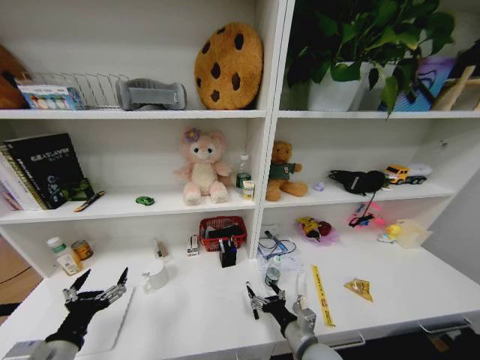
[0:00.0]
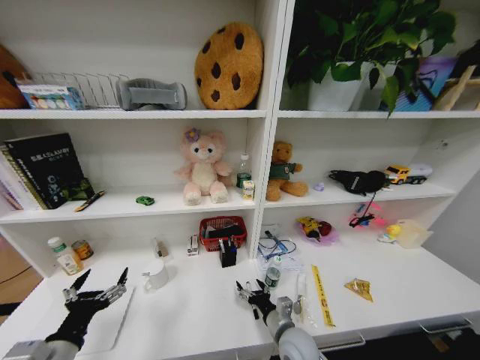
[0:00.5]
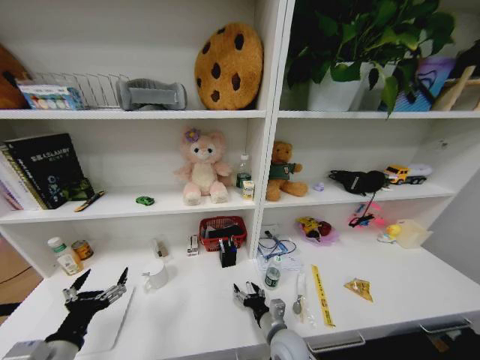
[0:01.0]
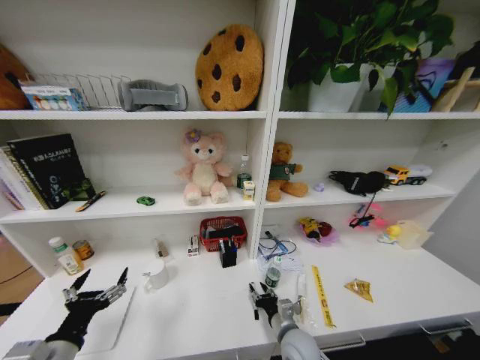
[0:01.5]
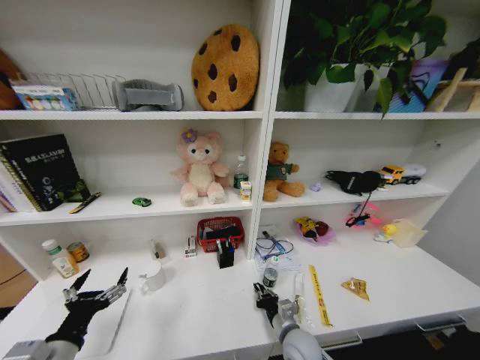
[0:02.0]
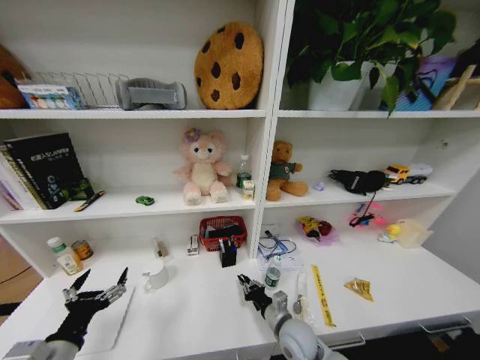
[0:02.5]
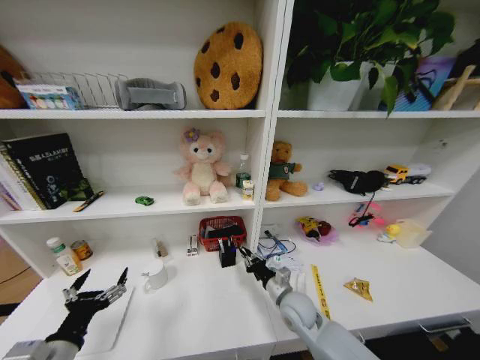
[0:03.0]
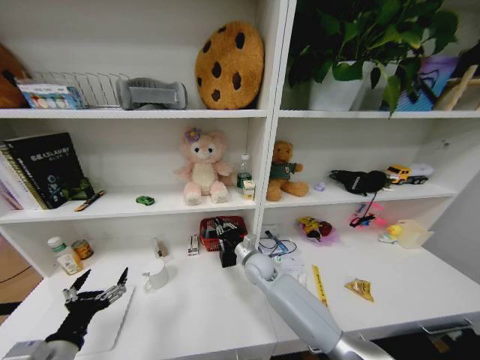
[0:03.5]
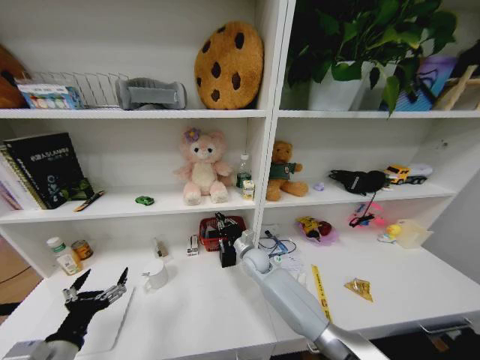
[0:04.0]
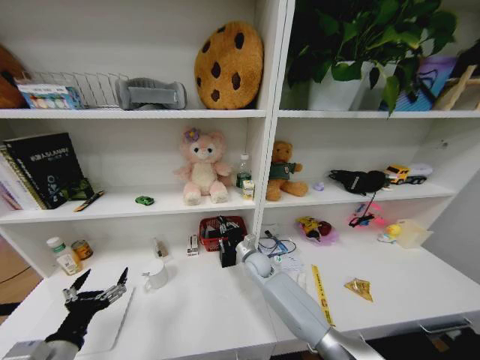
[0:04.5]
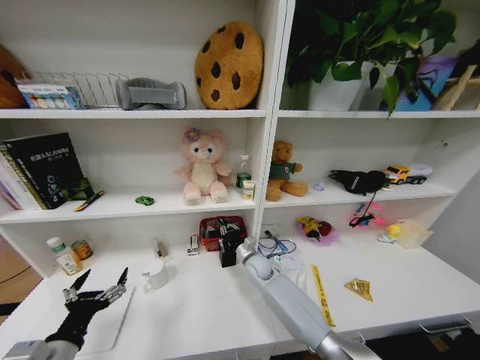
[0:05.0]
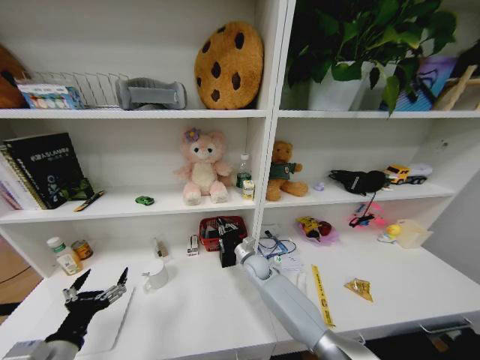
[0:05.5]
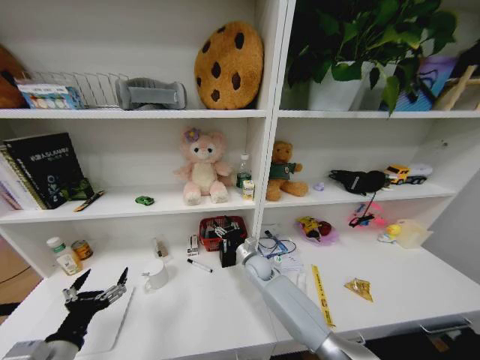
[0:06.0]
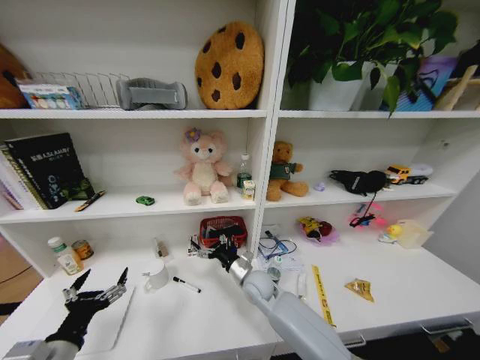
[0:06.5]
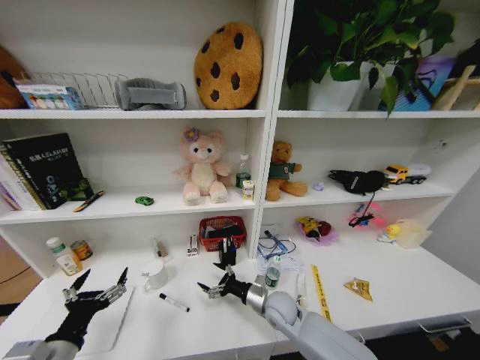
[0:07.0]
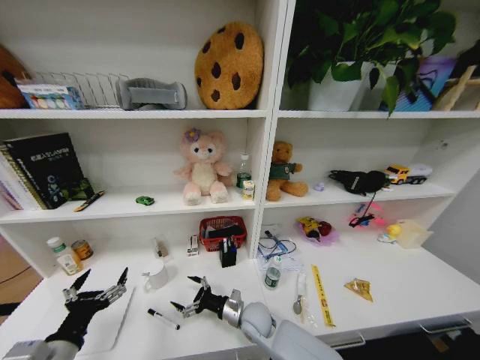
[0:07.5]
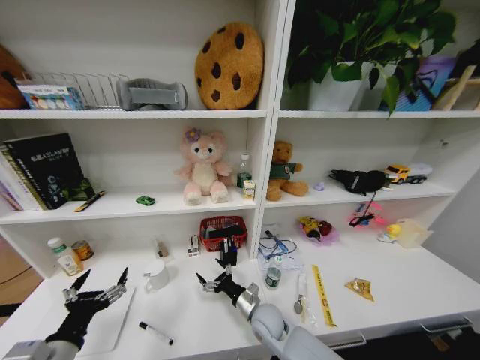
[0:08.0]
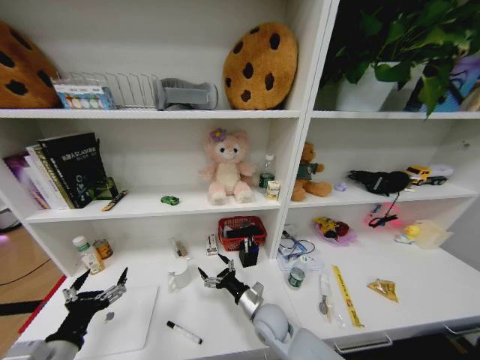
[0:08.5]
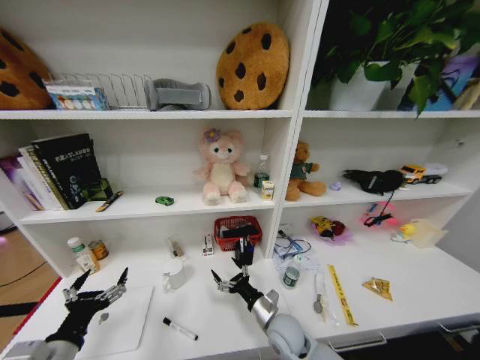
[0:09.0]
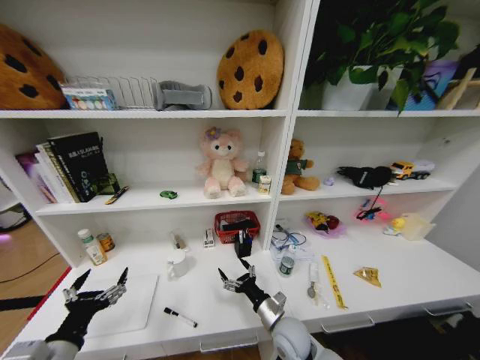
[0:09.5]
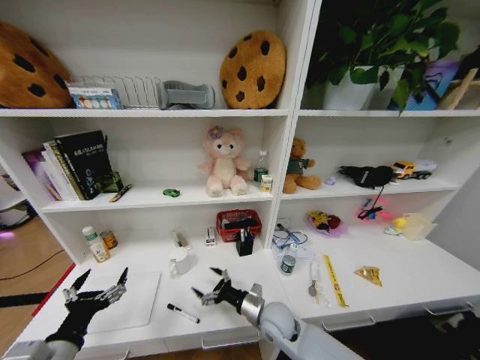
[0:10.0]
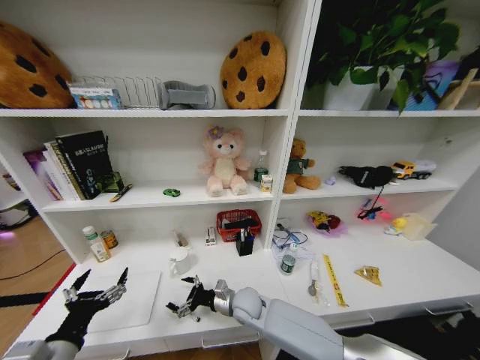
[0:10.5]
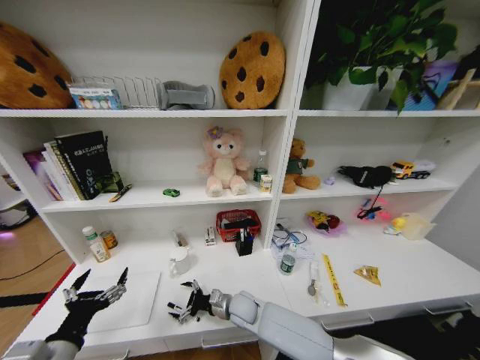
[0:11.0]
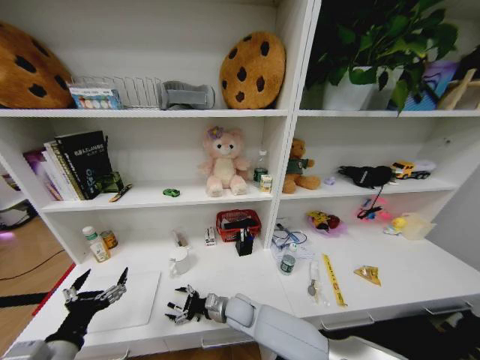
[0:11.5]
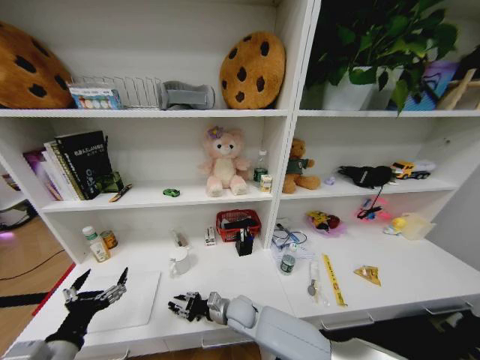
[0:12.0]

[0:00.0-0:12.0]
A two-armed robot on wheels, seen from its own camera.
Task of the whole recording: Organize the objects on the table.
0:00.0 to 0:02.0: The right gripper goes about 5 cm downward, and closes its fingers.
0:02.0 to 0:04.0: The right gripper heads forward, covering approximately 25 cm.
0:04.0 to 0:06.0: The right gripper opens up.
0:06.0 to 0:08.0: The right gripper travels backward by roughly 15 cm.
0:10.0 to 0:12.0: The right gripper moves to the left and downward, approximately 10 cm, and closes.

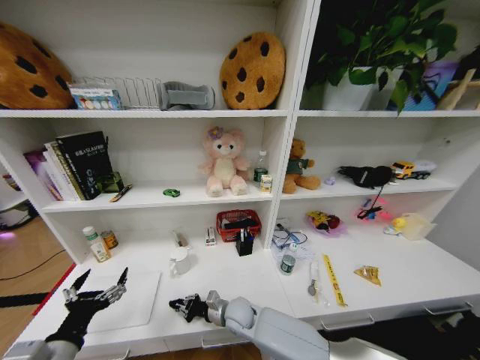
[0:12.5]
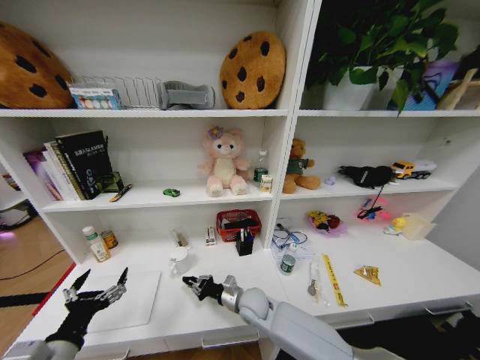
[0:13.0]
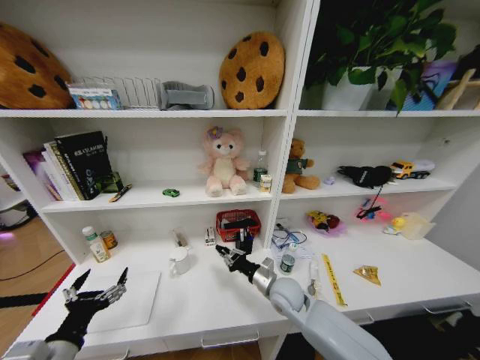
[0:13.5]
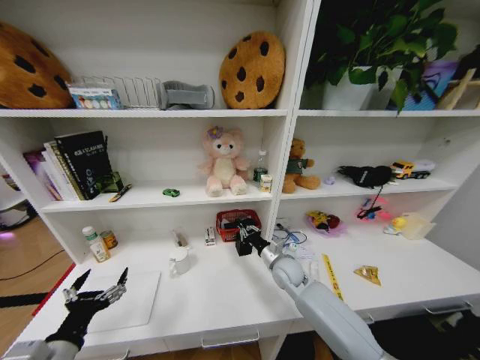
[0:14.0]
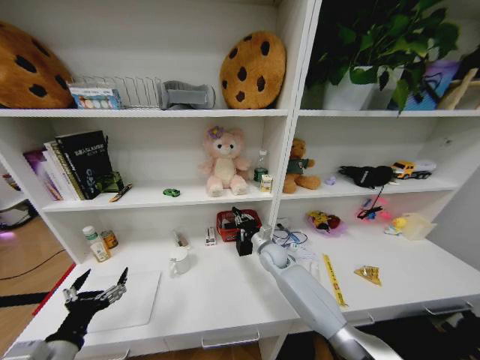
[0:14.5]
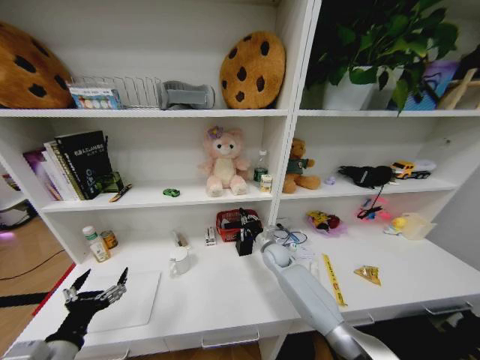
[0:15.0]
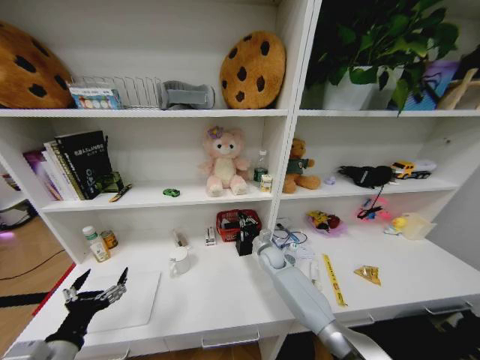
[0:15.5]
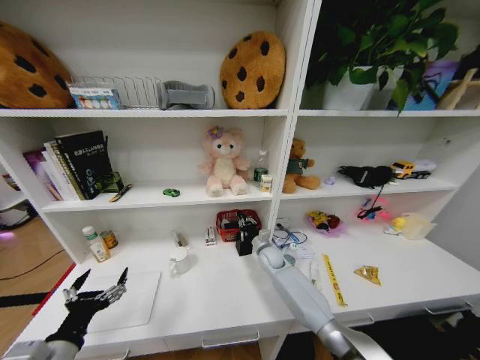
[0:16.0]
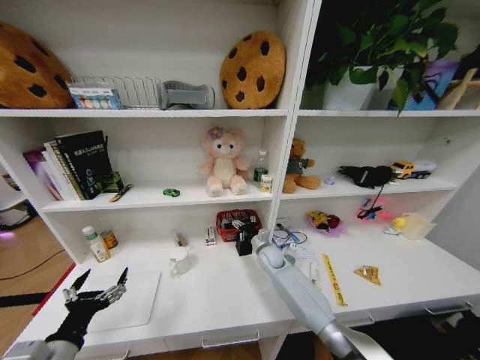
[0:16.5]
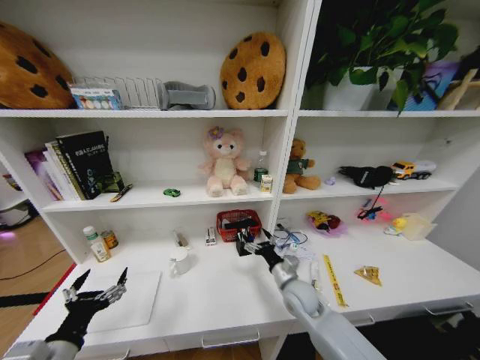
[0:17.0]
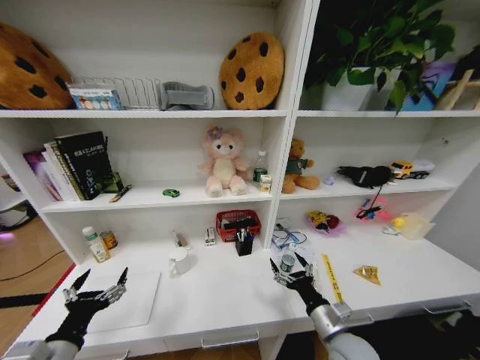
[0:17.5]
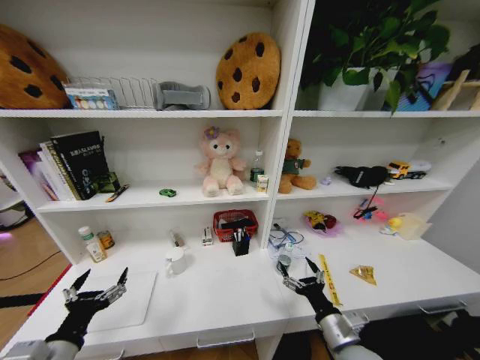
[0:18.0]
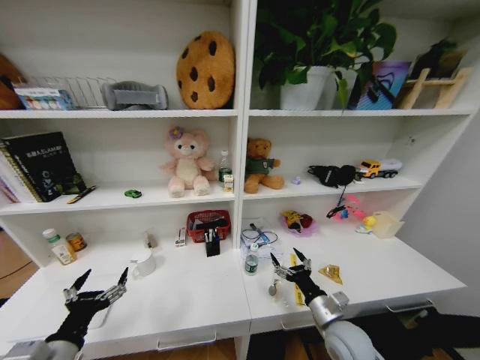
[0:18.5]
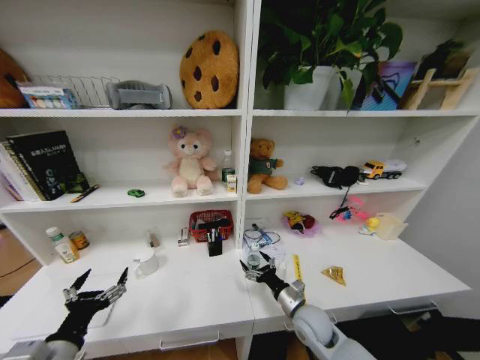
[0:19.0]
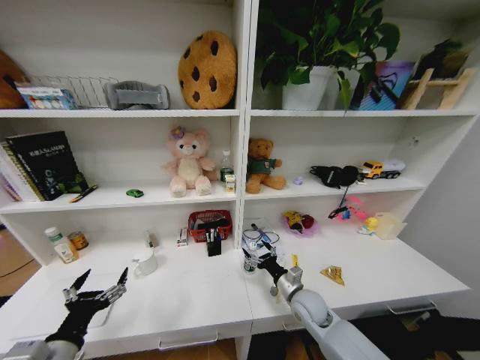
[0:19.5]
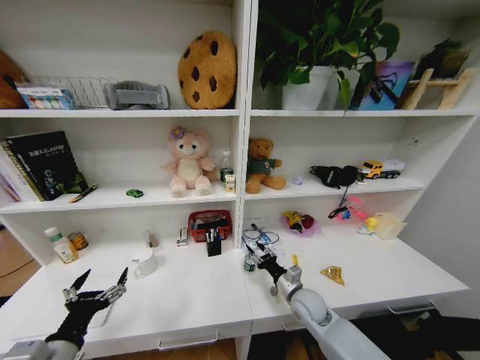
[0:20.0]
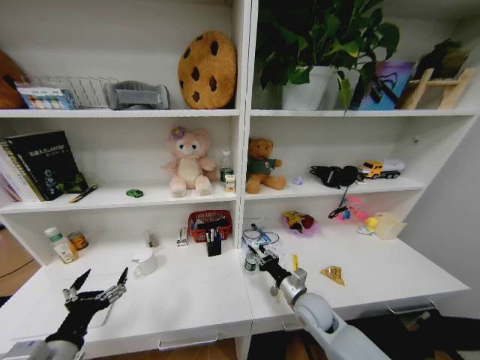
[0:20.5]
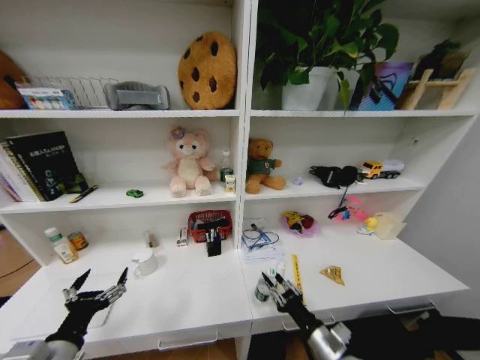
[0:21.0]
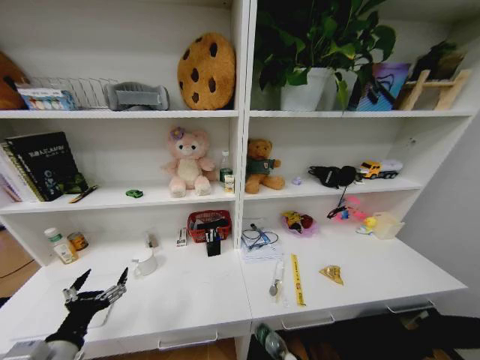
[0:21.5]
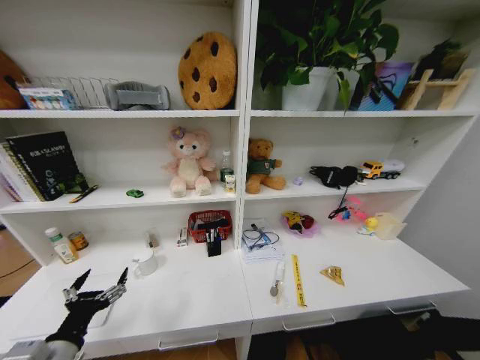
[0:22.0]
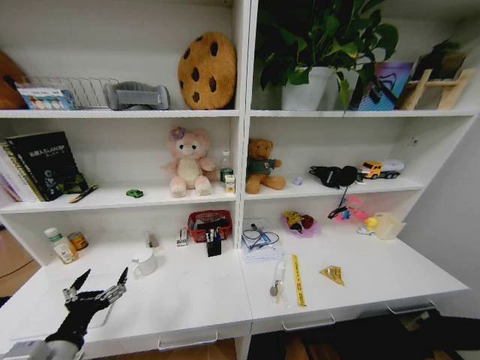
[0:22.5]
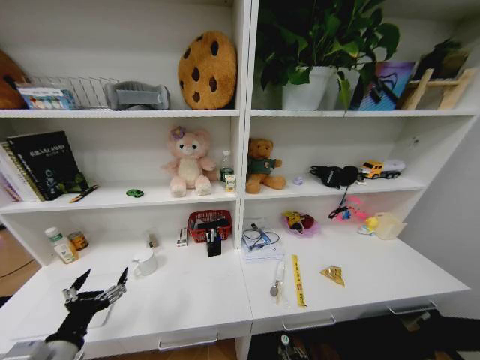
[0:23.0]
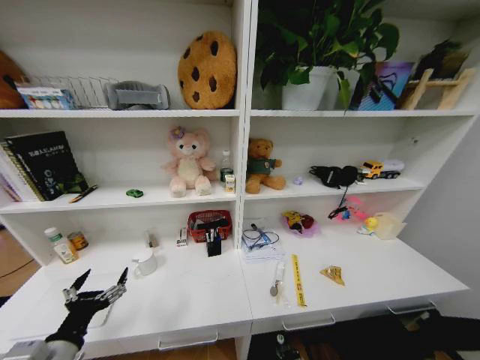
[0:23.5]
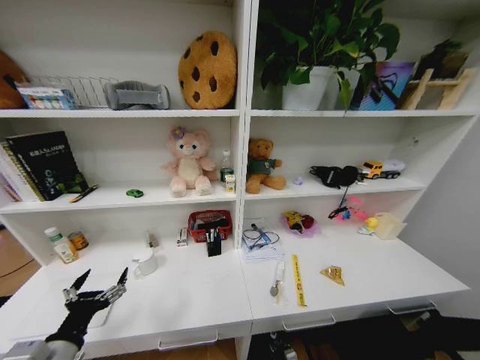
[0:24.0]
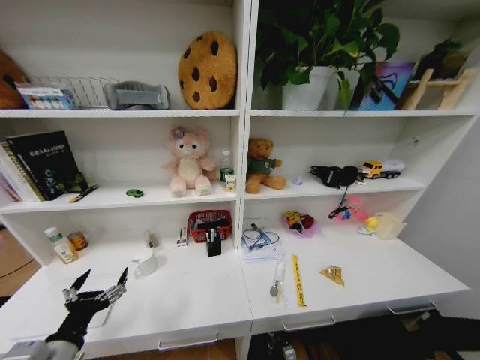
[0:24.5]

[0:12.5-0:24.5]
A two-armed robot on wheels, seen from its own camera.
Task of the whole recording: Organize the objects on the table.
0:12.5 to 0:14.5: The right gripper shifts approximately 25 cm forward, to the right and upward.
0:14.5 to 0:16.5: The right gripper opens.
0:16.5 to 0:18.5: The right gripper shifts about 30 cm backward and to the right.
0:18.5 to 0:20.5: The right gripper moves forward, some 10 cm, and closes its fingers.
0:20.5 to 0:22.5: The right gripper travels backward and downward by approximately 35 cm.

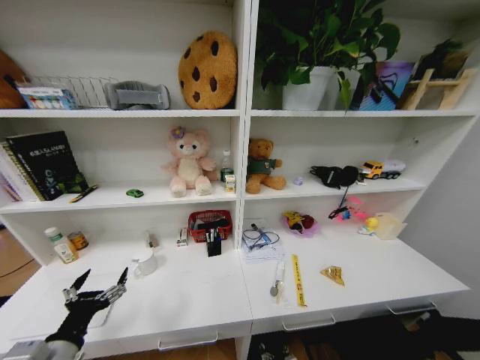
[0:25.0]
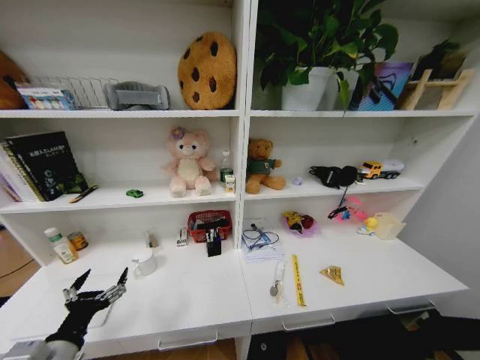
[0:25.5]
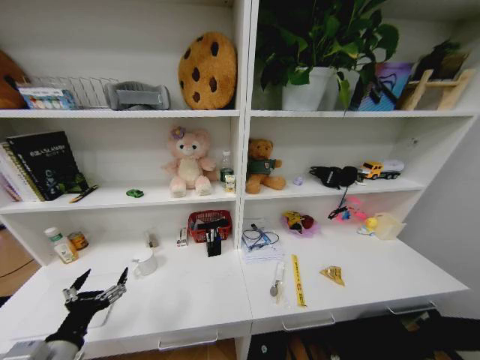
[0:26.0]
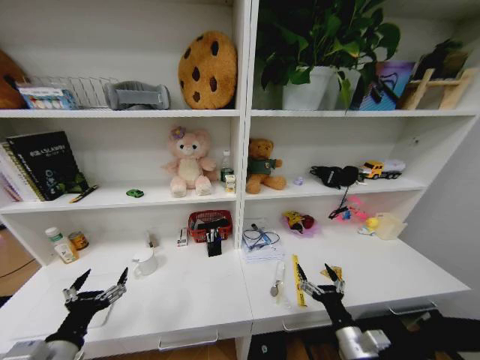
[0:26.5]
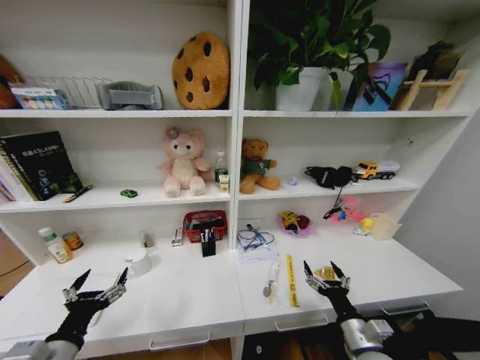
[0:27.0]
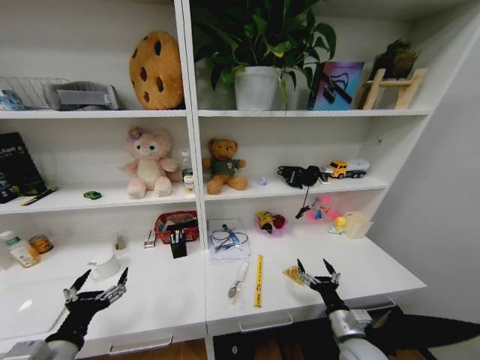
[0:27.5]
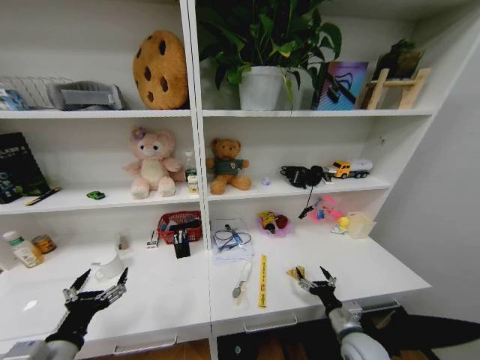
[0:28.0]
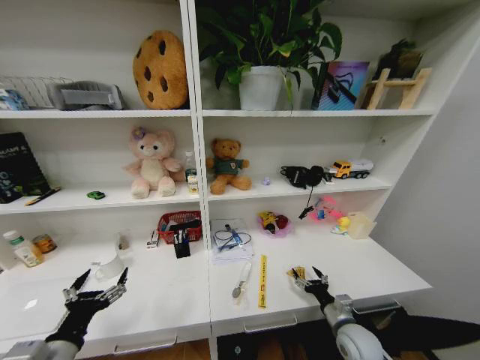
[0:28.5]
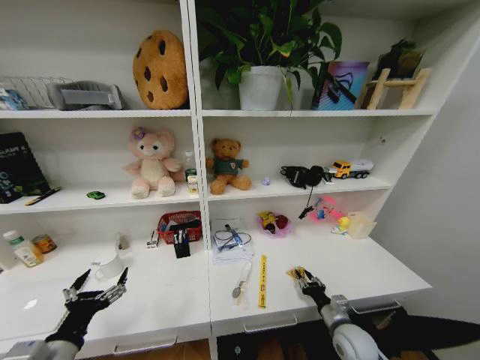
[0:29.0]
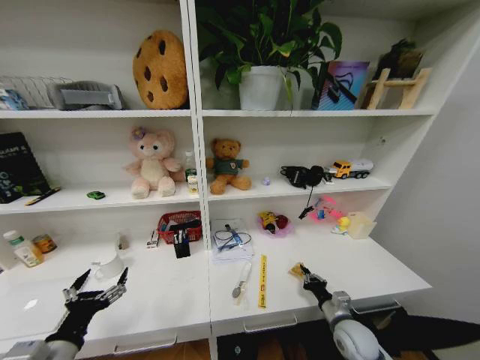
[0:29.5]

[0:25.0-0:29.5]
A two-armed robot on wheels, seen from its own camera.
Task of the whole recording: Organize the objects on the table.
0:25.0 to 0:27.0: The right gripper moves upward, roughly 30 cm.
0:27.0 to 0:29.5: The right gripper is displaced forward and downward by approximately 10 cm, and closes.
